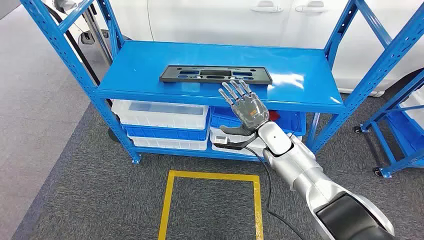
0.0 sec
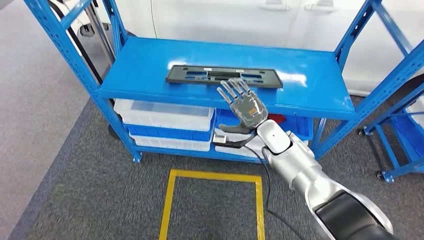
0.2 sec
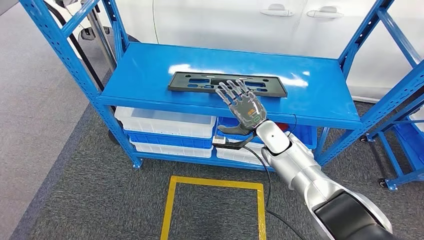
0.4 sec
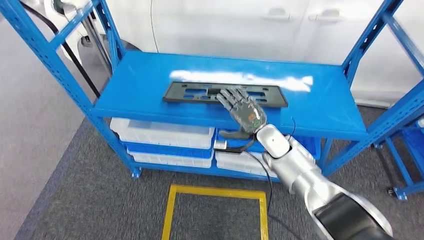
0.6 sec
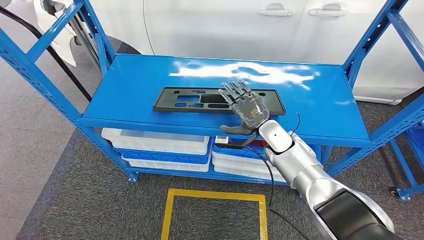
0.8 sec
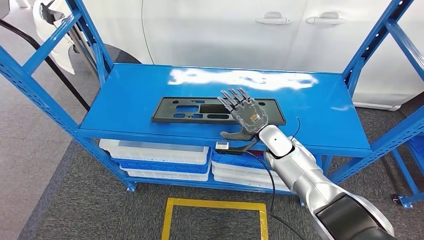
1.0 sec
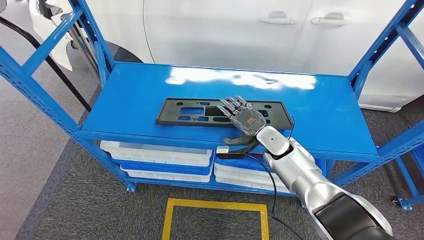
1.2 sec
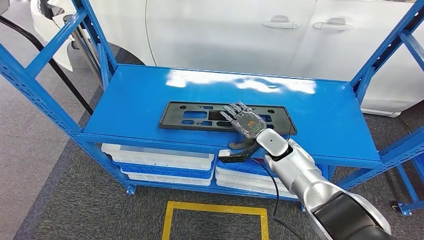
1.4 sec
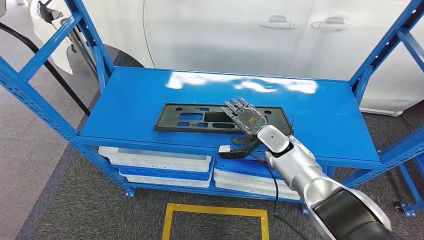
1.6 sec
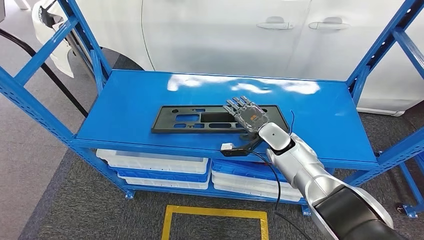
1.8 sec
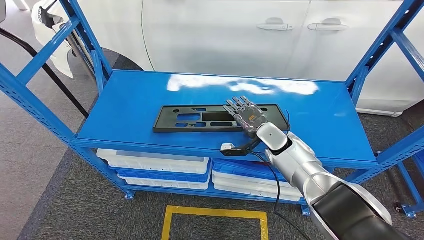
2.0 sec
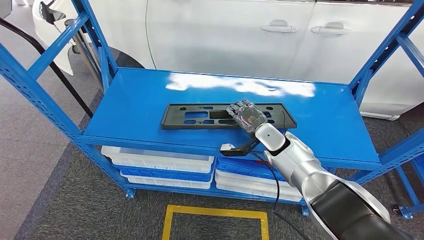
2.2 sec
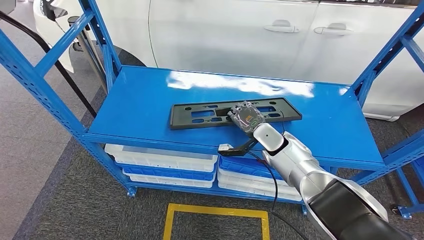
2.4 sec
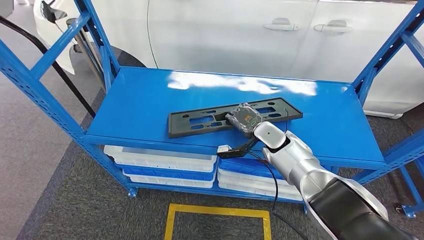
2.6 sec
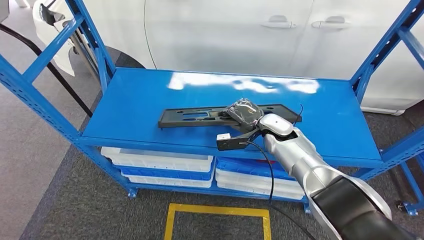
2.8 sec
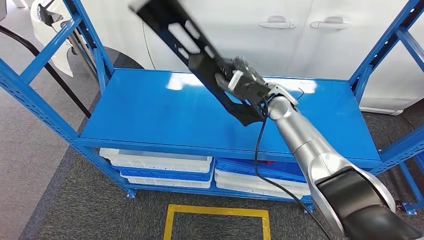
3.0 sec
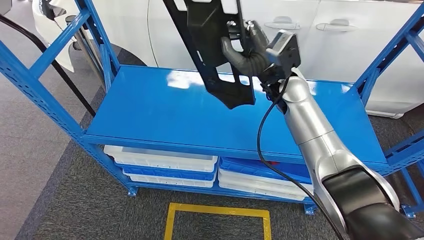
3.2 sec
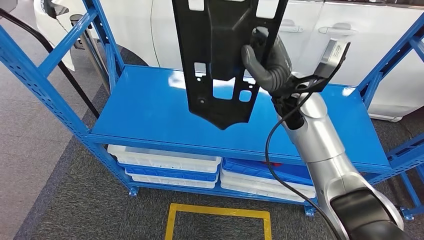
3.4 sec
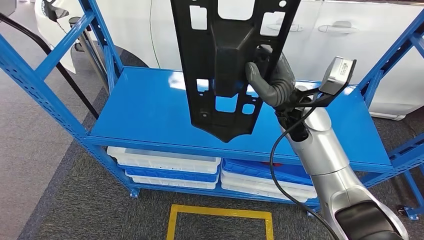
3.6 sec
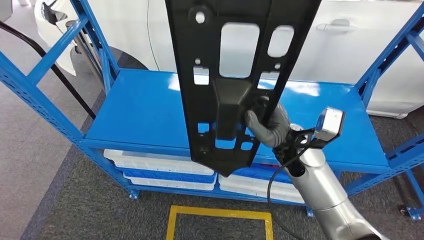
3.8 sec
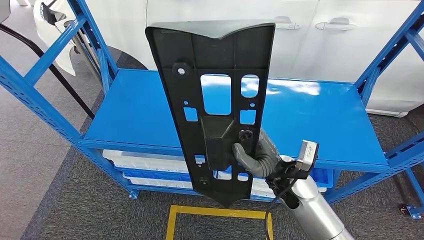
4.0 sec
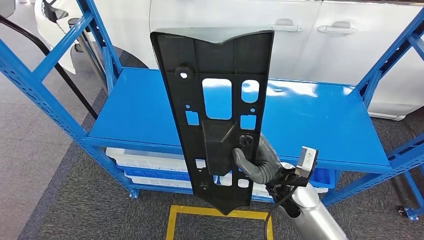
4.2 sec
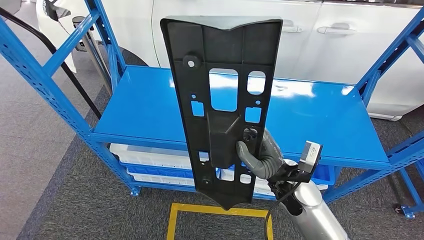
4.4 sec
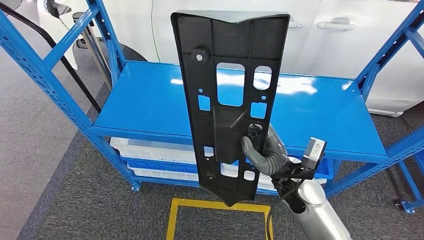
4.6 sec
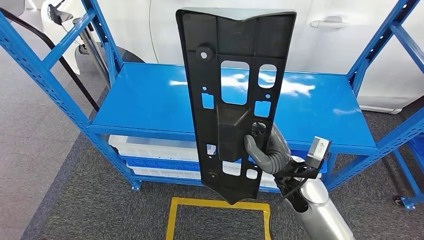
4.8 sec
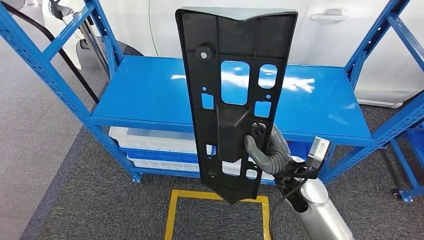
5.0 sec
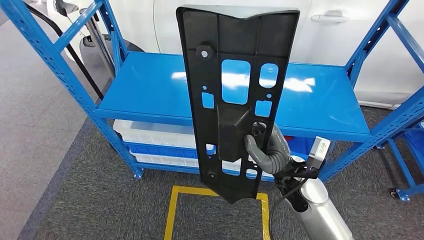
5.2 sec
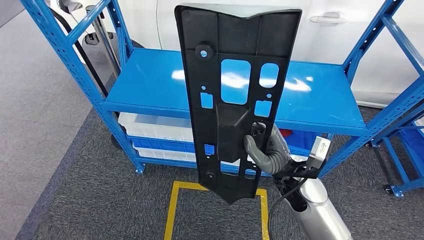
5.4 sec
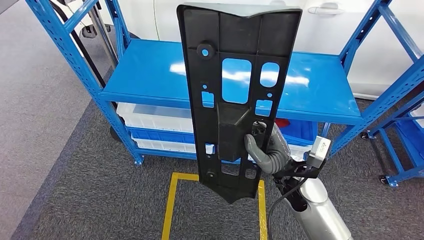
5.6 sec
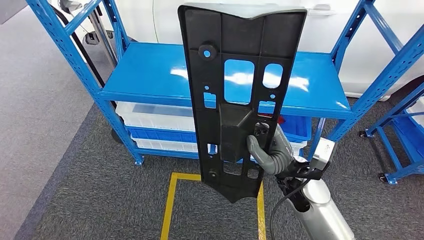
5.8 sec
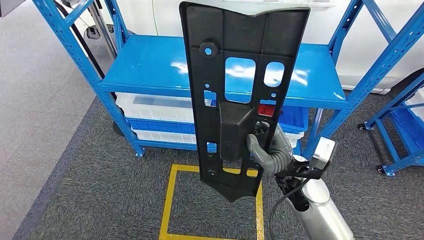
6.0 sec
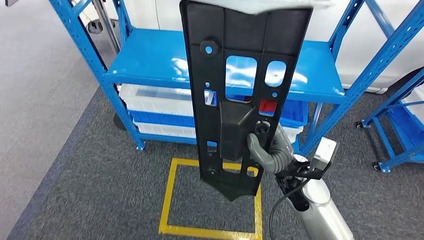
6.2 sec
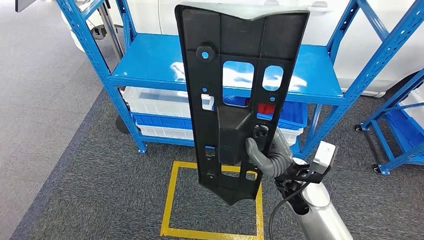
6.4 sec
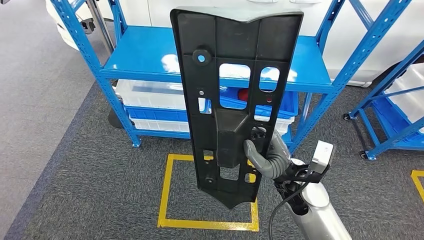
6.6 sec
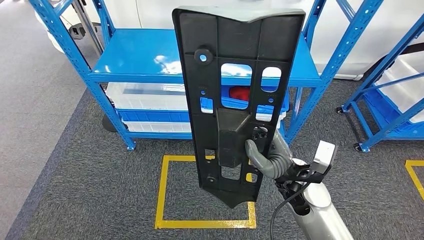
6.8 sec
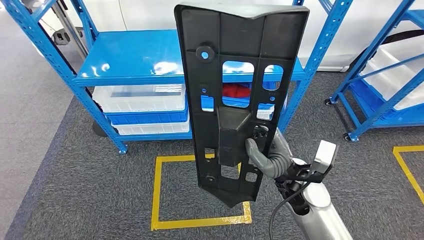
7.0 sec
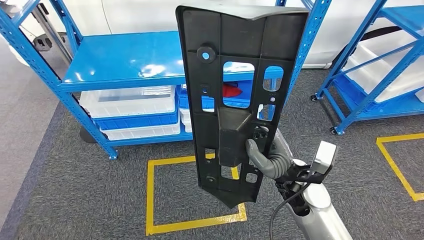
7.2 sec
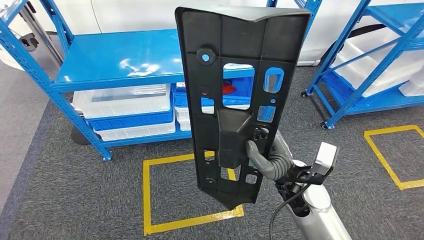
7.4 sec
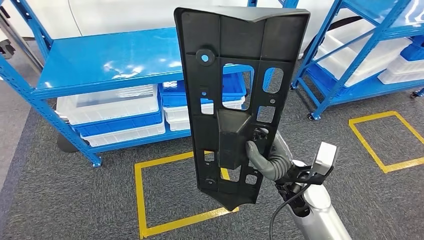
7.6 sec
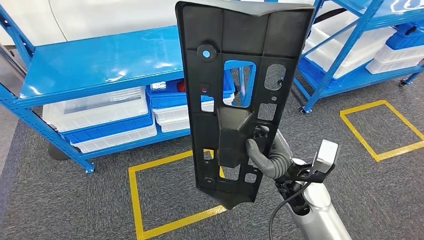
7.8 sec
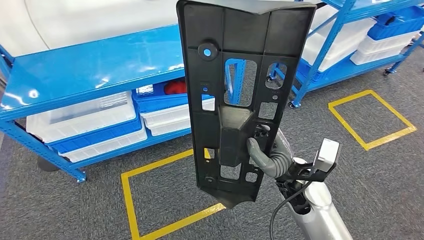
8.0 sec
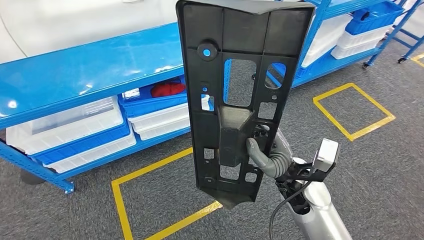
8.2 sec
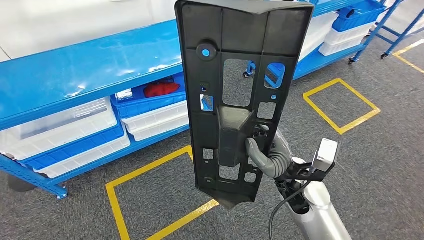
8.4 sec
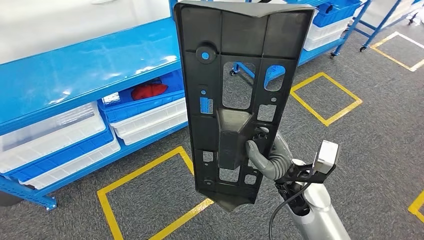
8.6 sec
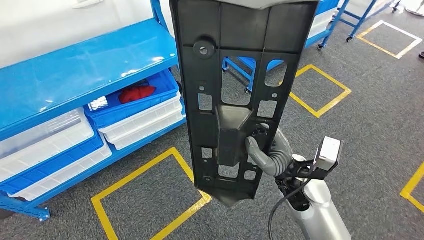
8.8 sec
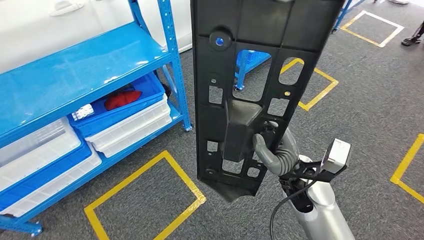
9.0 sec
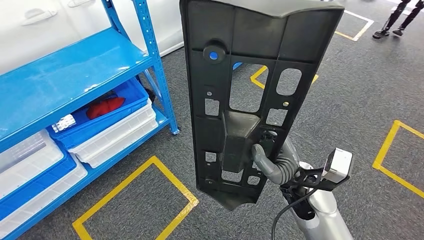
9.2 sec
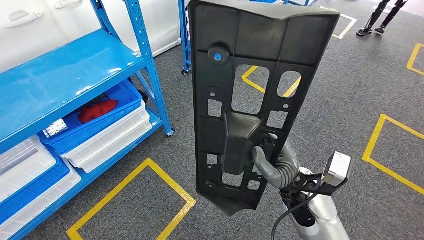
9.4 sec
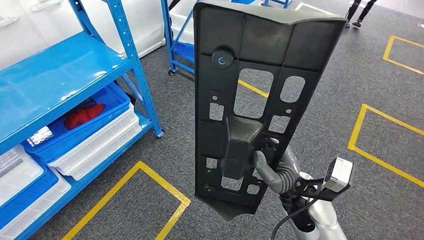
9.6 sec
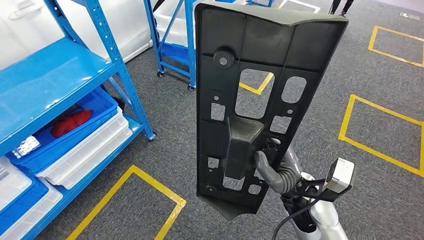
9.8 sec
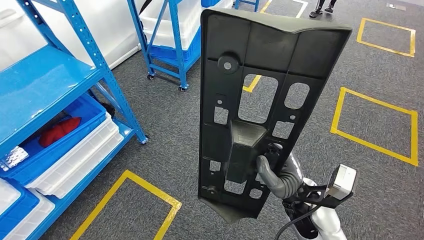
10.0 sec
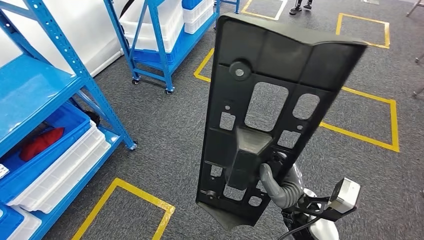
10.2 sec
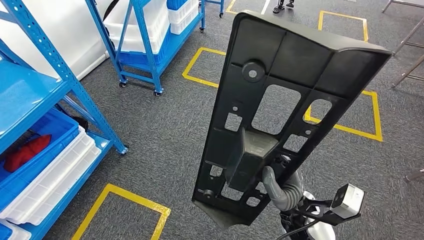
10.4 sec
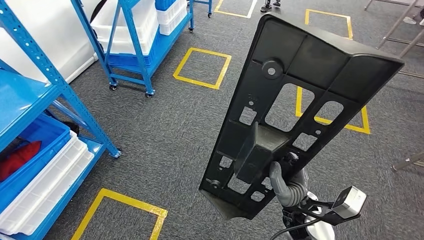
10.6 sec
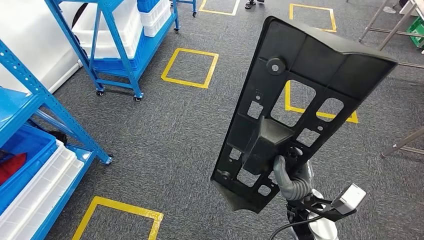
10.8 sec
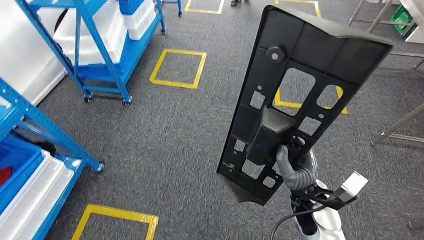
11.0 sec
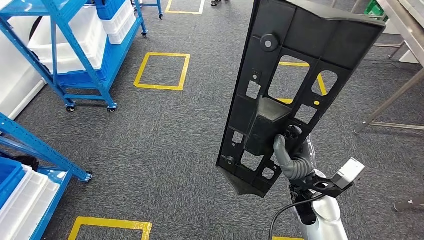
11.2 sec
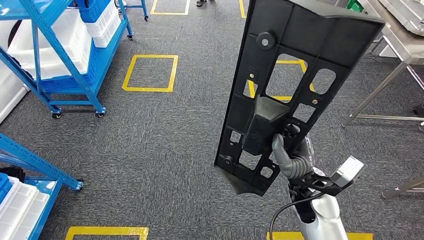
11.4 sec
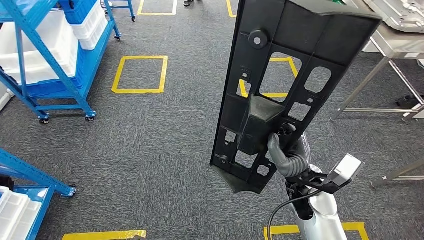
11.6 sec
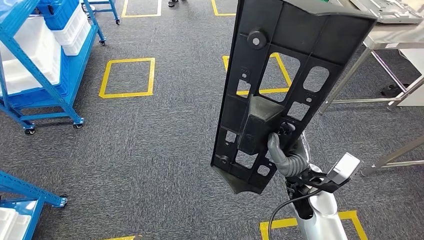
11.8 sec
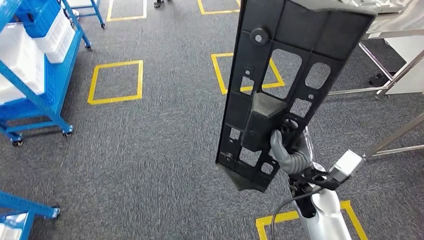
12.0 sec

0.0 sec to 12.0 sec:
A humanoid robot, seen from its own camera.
Step, 0.0 sec to 3.6 sec: Pick up the large material from the shelf.

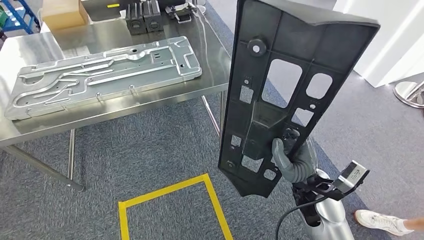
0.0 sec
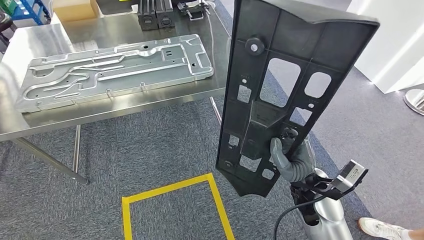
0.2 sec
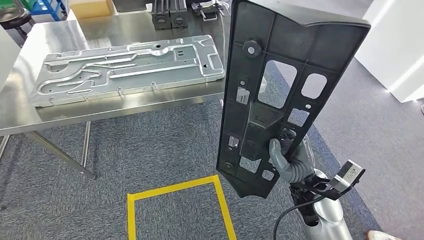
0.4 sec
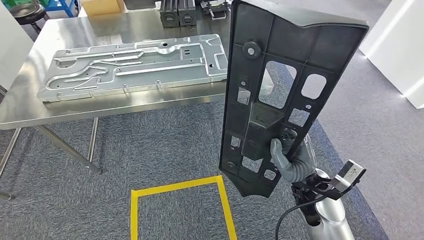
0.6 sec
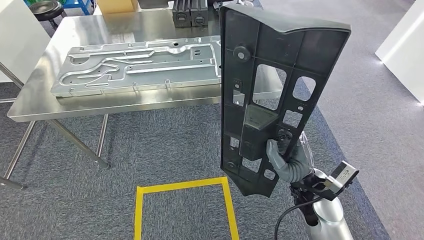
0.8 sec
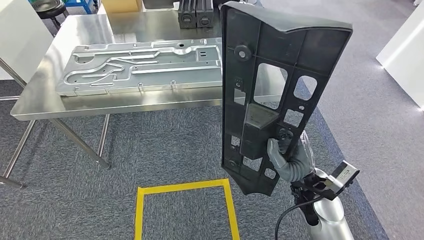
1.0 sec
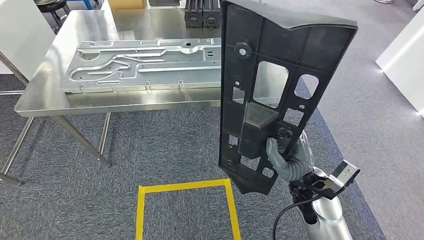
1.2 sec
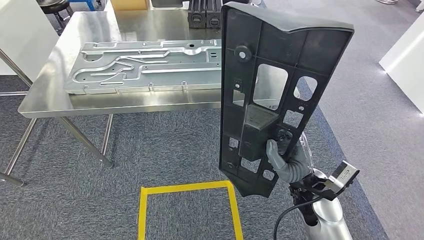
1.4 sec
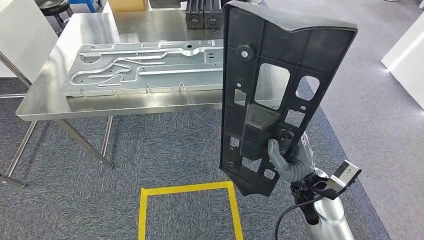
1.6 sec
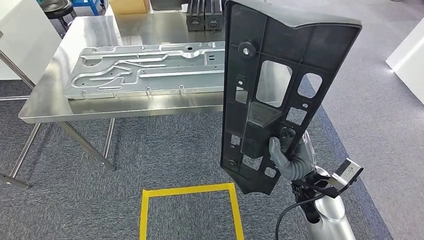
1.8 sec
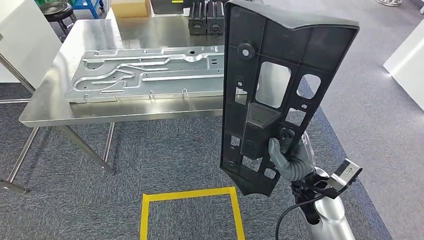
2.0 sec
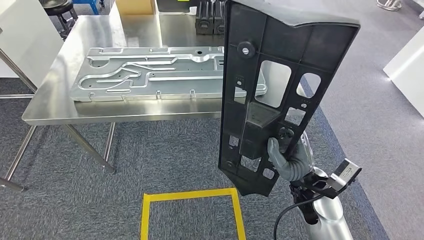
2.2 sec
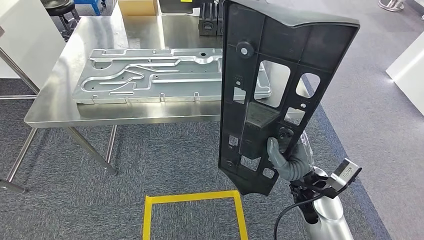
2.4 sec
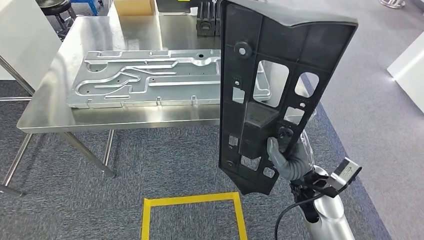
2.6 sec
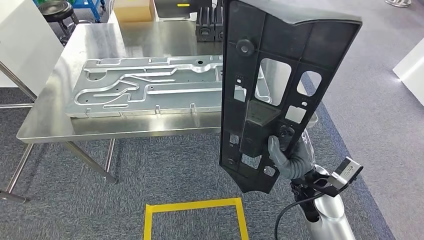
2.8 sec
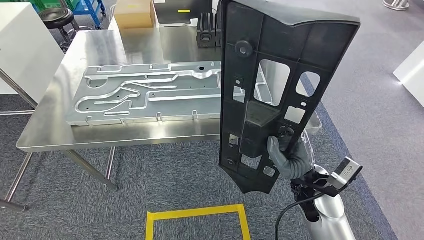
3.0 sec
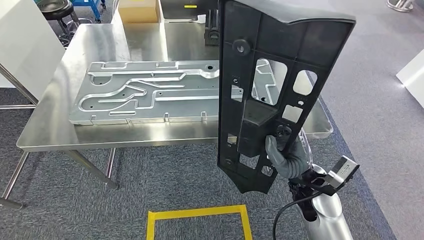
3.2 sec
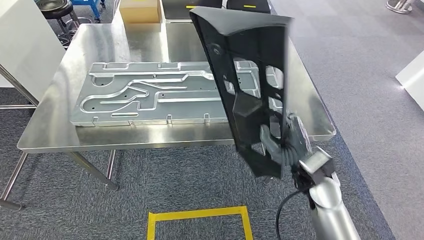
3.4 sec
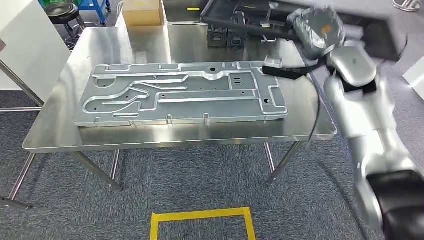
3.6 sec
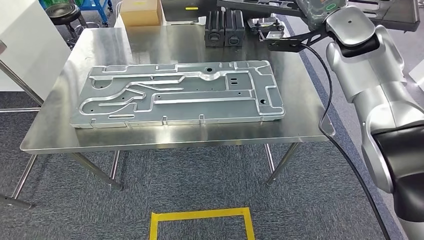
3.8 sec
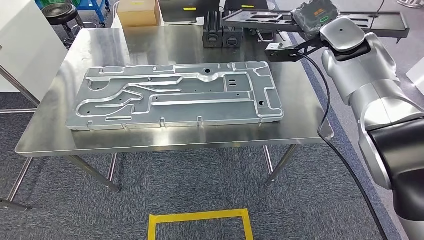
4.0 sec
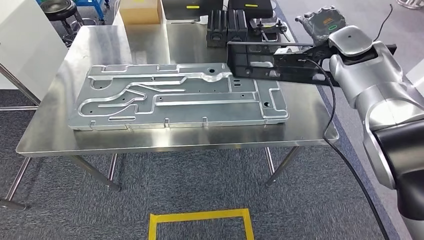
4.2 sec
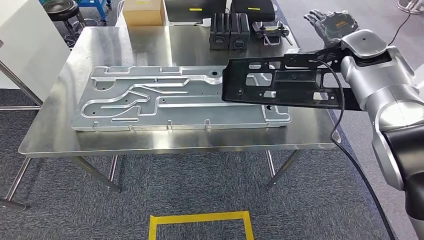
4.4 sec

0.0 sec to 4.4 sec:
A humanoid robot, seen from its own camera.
Step, 0.0 sec to 4.4 sec: Move the large material to the workbench.

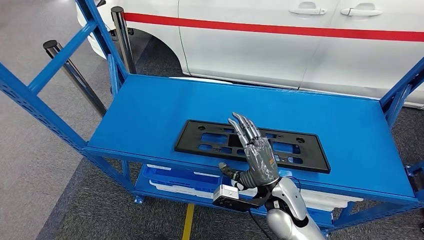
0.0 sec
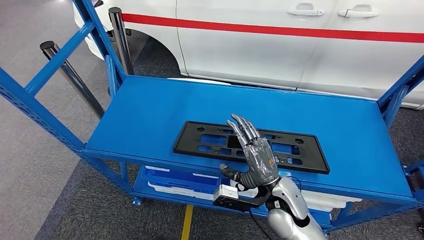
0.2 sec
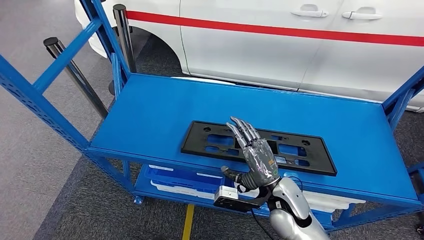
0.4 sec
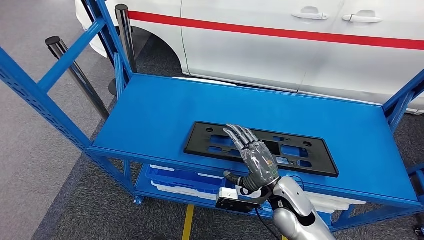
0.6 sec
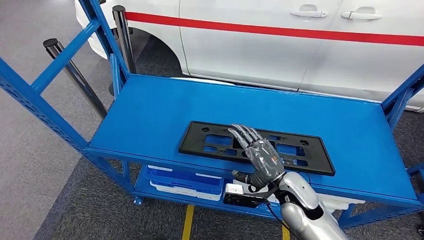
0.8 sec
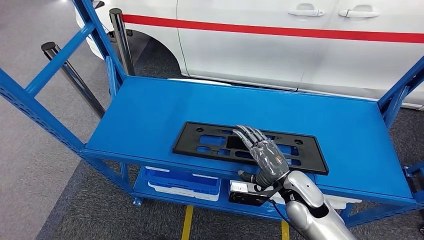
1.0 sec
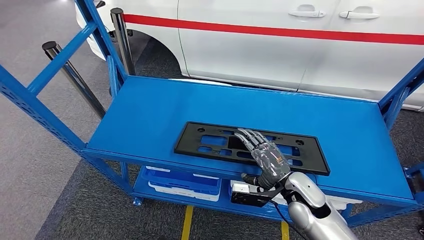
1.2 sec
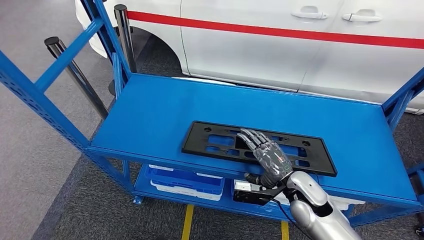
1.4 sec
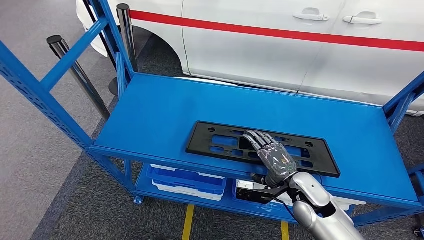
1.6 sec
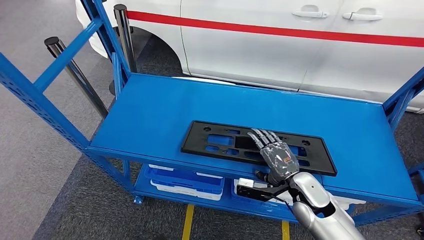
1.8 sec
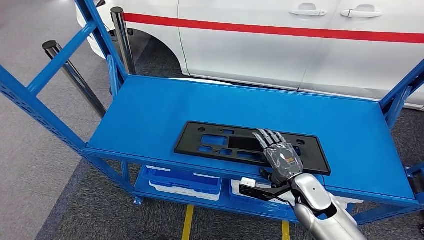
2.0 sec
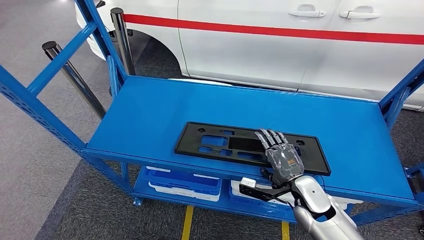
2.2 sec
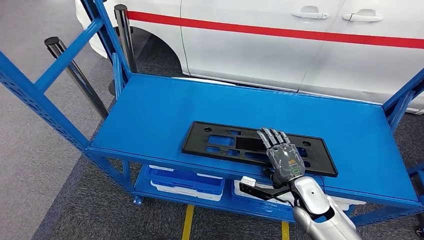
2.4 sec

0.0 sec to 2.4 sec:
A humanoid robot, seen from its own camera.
0.0 sec to 1.2 sec: The right hand heads to the right, covering some 5 cm.
